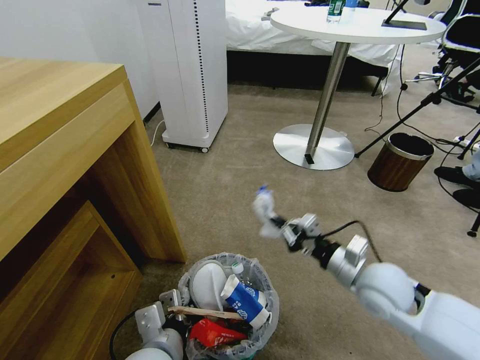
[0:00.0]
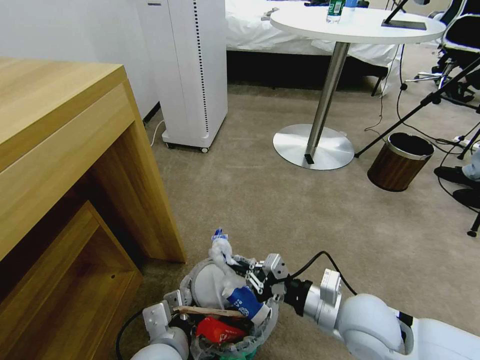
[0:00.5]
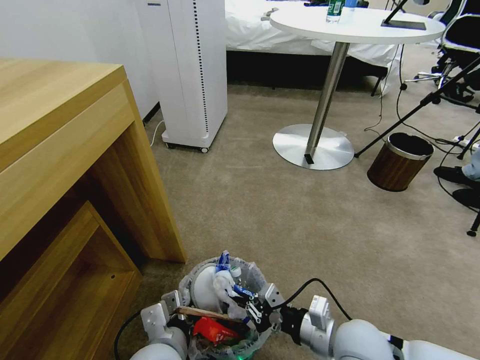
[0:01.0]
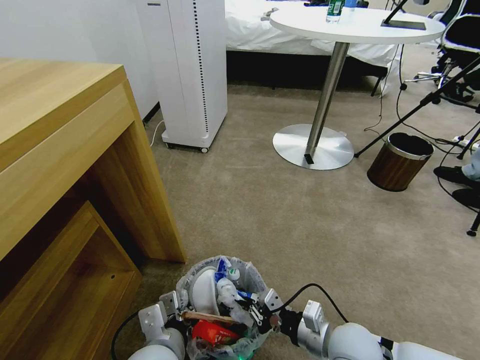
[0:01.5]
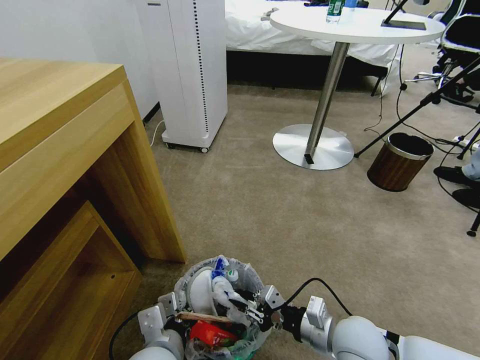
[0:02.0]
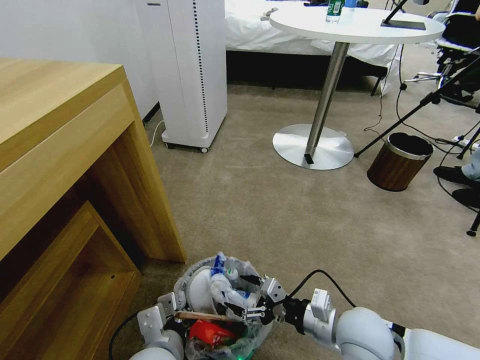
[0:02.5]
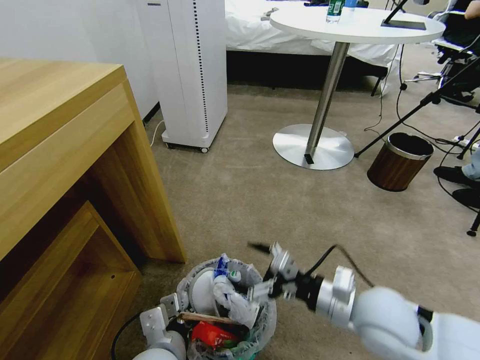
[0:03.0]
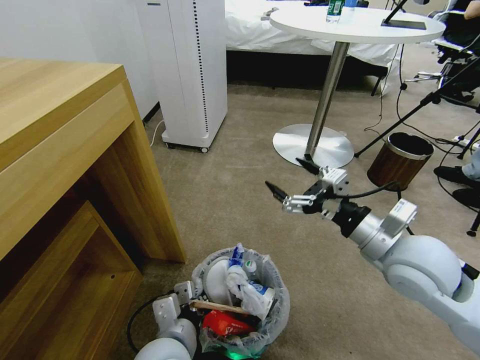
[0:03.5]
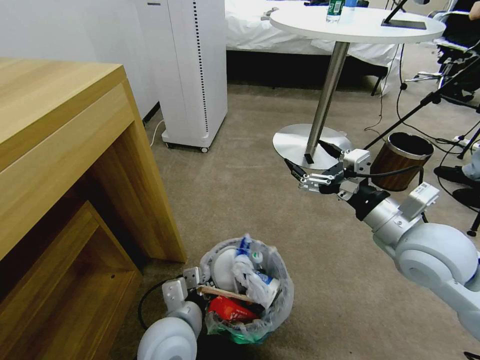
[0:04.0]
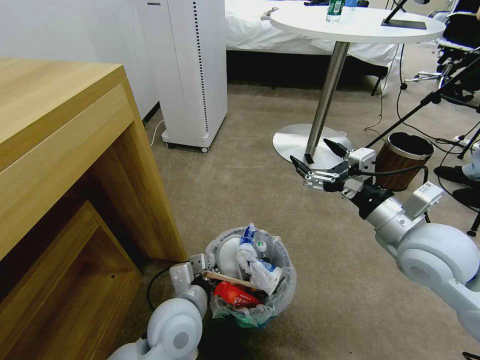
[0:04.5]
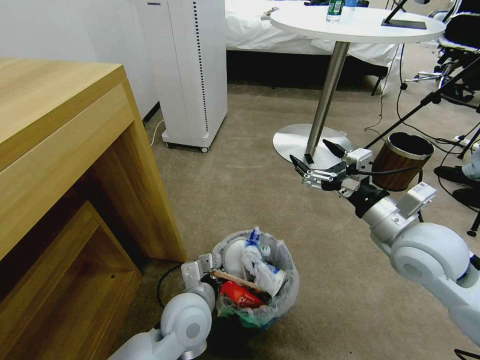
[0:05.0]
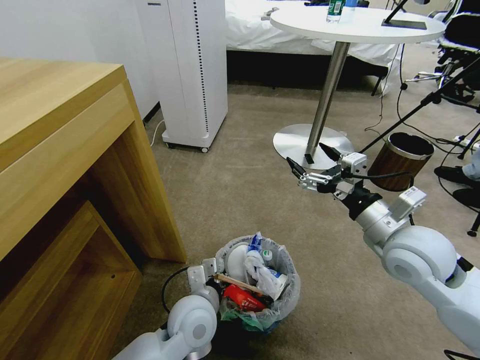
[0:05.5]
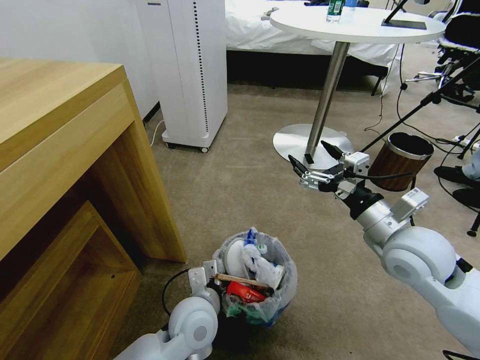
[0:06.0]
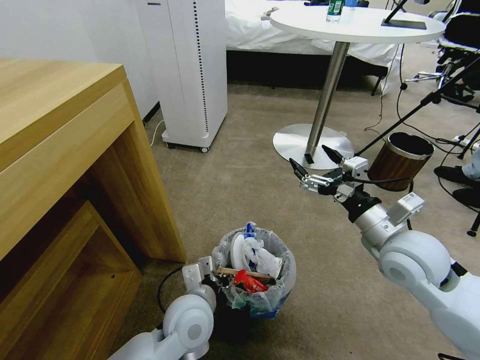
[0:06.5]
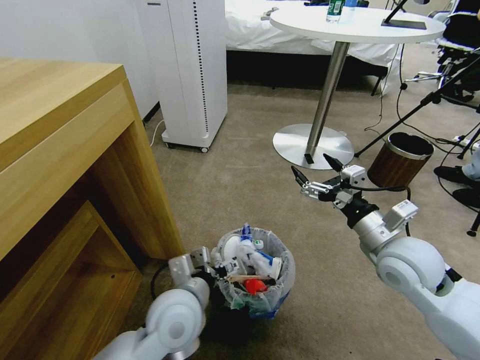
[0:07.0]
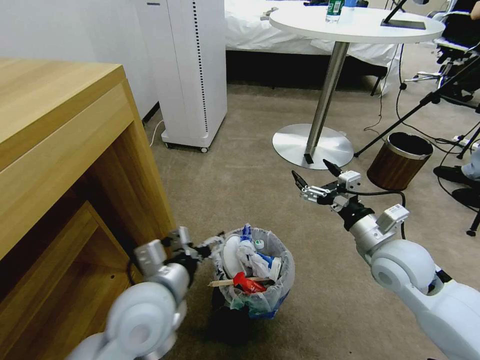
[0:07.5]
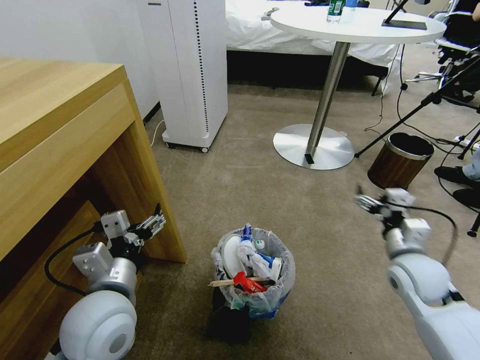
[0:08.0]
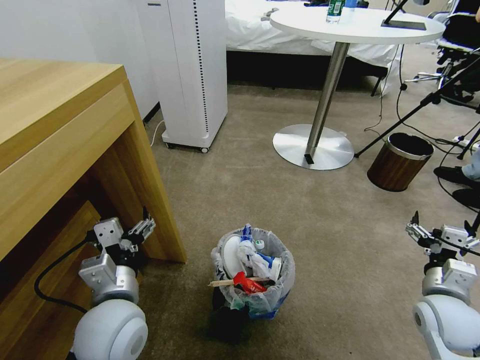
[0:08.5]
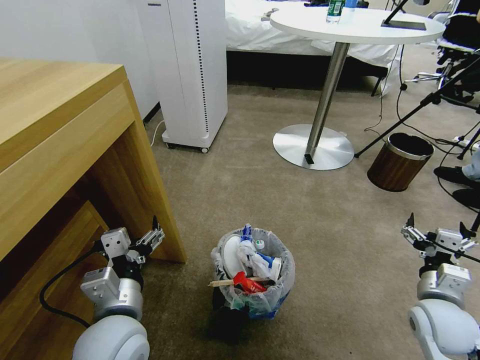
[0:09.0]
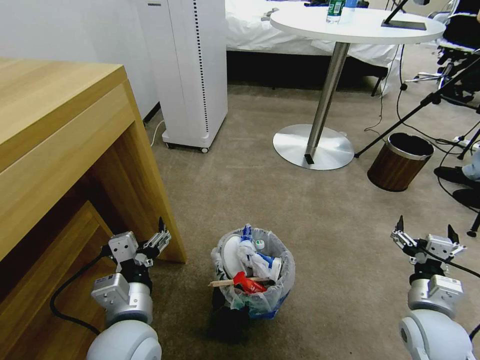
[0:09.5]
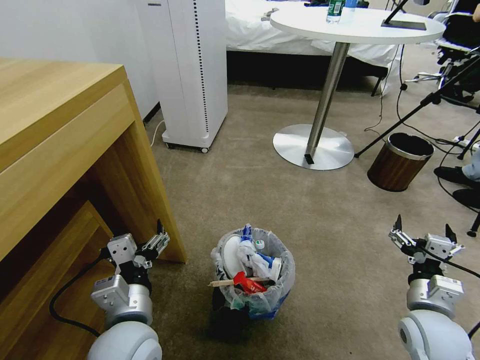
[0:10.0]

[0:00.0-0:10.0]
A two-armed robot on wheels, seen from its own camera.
Task of the whole recording: Pick up the trash bin and place the garbage on the floor into it.
0:00.0 to 0:02.0: The right gripper shifts approximately 10 cm backward, downward and to the left.
0:02.0 to 0:04.0: The right gripper travels upward, forward and to the right by some 20 cm, and opens.
0:04.0 to 0:06.0: The left gripper shifts some 5 cm forward.
0:06.0 to 0:08.0: The right gripper shifts approximately 15 cm downward and to the right. Meanwhile the left gripper goes about 15 cm upward and to the left, and opens up.
0:08.0 to 0:10.0: The left gripper shifts by about 5 cm. Meanwhile the right gripper travels backward by roughly 10 cm.
